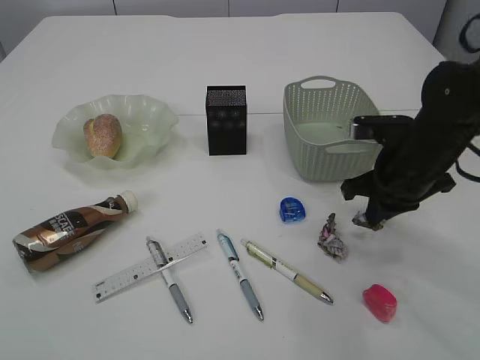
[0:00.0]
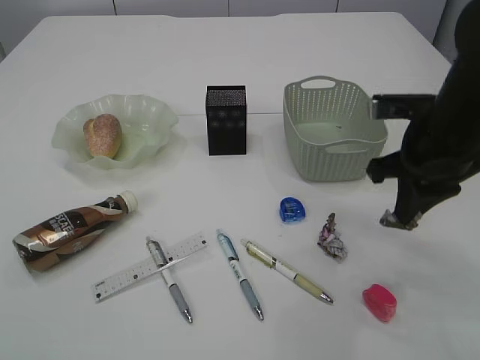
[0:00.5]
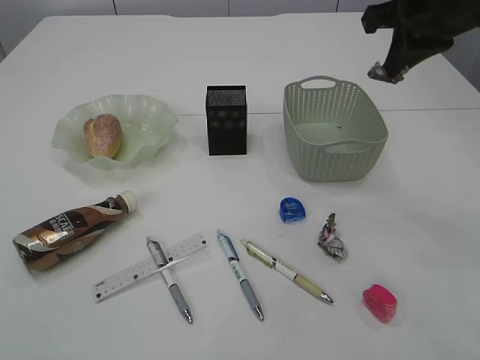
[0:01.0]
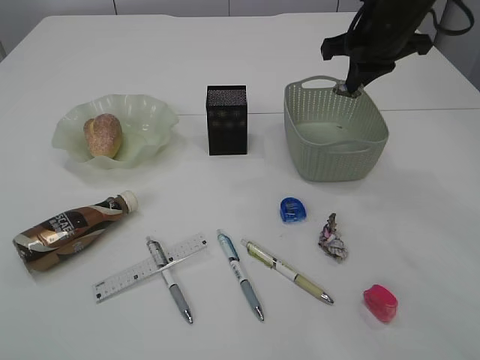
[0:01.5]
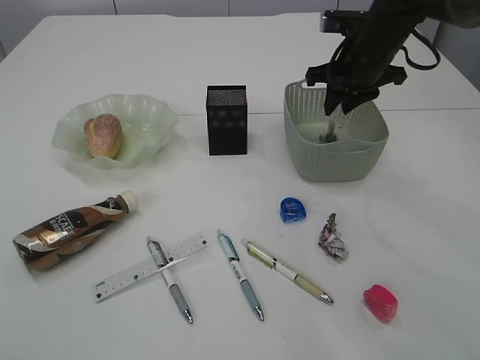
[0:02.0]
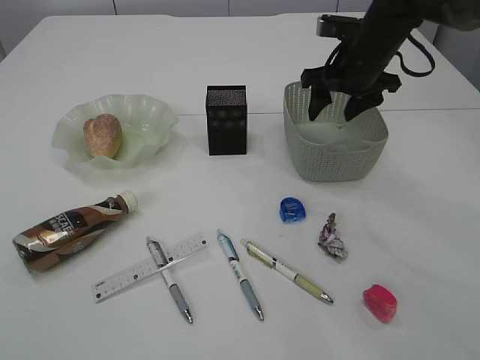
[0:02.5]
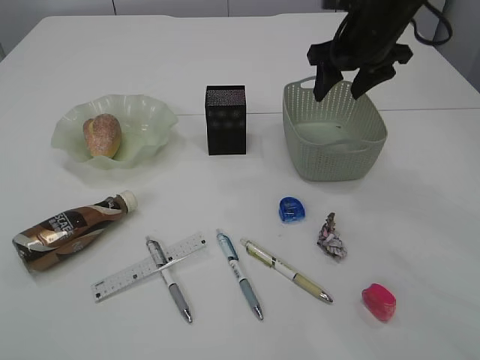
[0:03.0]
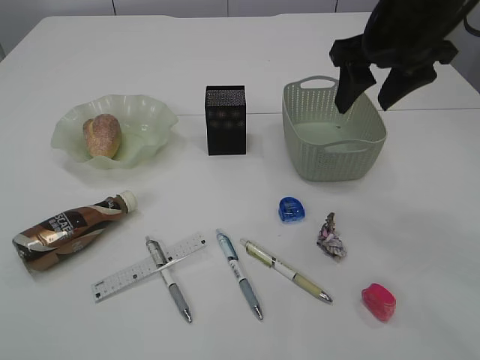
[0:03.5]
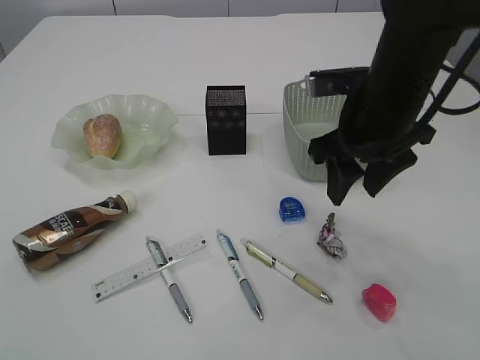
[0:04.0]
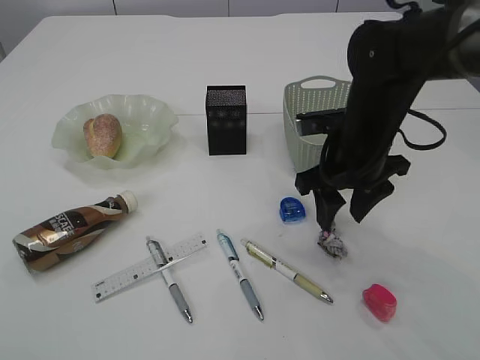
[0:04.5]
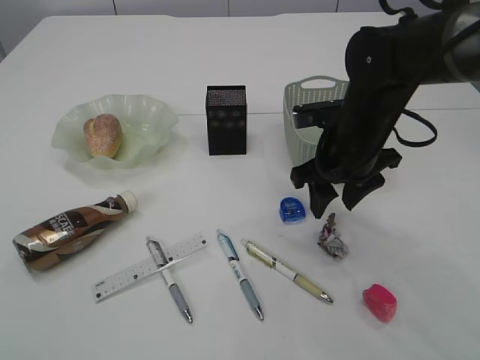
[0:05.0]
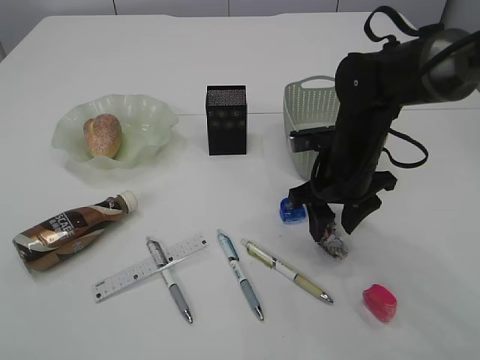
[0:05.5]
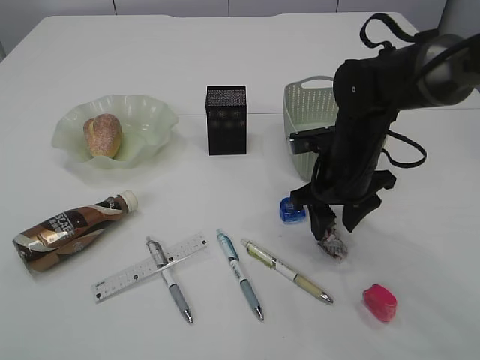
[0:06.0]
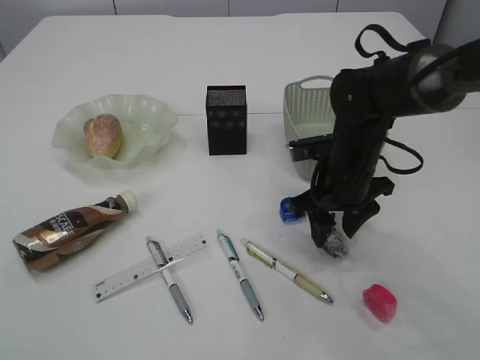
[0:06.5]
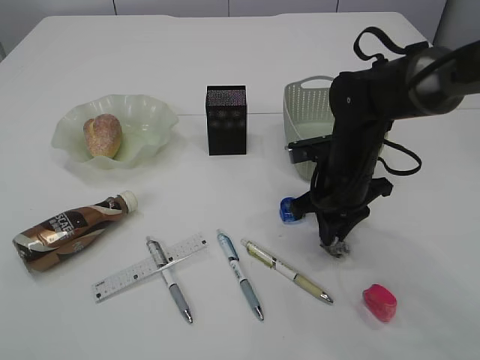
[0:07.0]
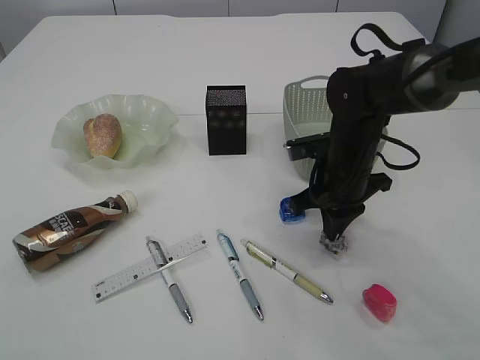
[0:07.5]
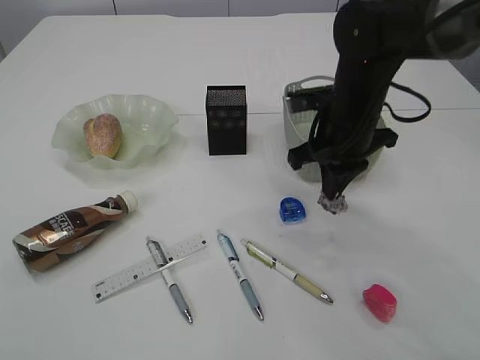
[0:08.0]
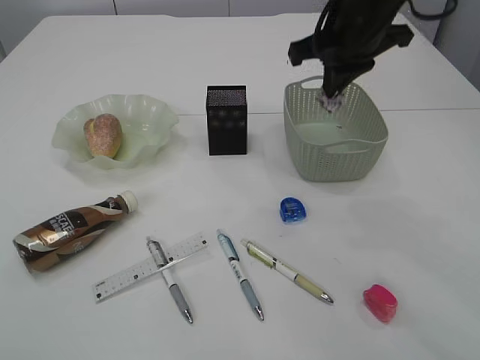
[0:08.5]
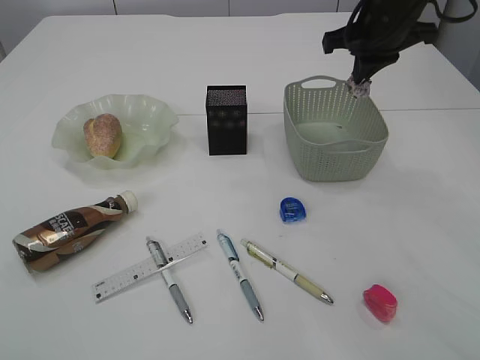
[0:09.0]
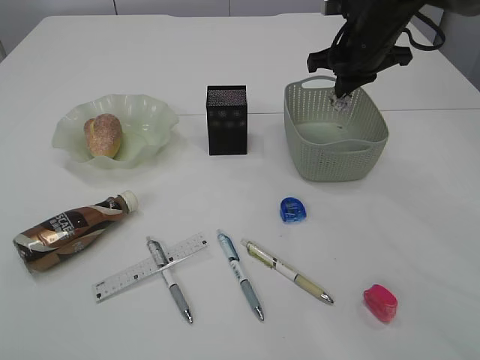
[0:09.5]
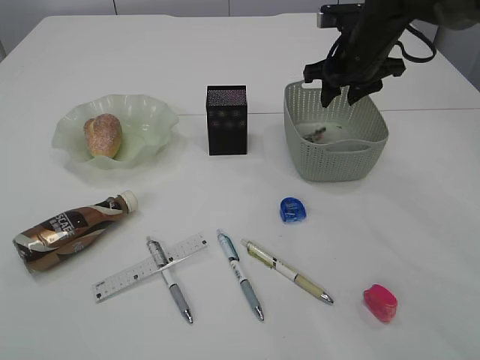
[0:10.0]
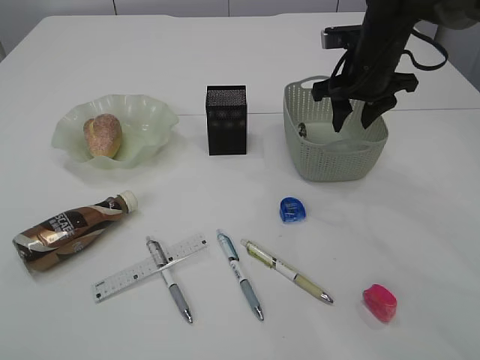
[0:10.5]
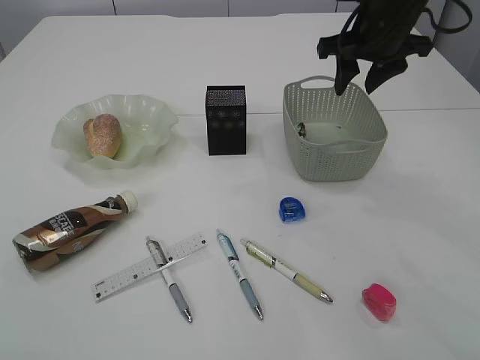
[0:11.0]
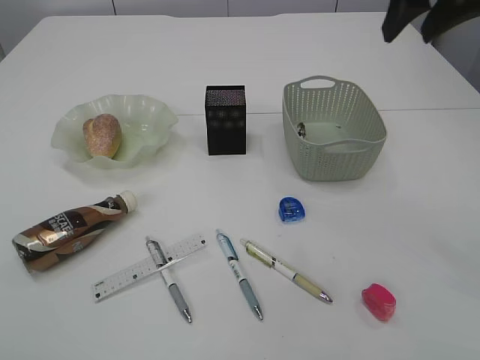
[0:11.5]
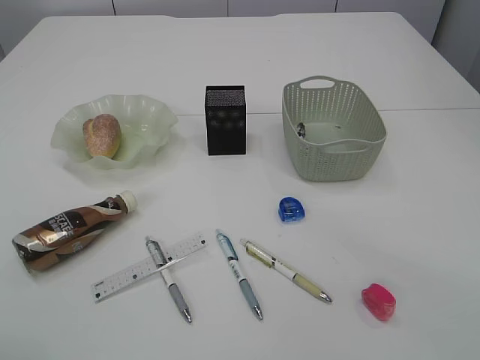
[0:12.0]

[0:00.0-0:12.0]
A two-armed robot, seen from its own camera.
Step, 0:00.5 to 0:02.5: Place the waste paper in the basket.
Step, 0:03.0 to 0:08.0: Pick up the waste paper.
Step, 0:08.5 to 0:10.5: Place the waste paper in the basket.
0:00.0 to 0:02.0: The right gripper is displaced forward and upward by about 15 cm, and opens its fingers.
0:02.0 to 0:04.0: The right gripper heads backward, covering roughly 15 cm, and opens up.
0:04.0 to 0:06.0: The right gripper shifts about 10 cm downward.
0:06.0 to 0:08.0: The right gripper travels upward by approximately 5 cm, and closes up.
0:08.0 to 0:10.0: The right gripper heads forward, covering roughly 10 cm, and opens up.
0:10.0 to 0:12.0: The left gripper shifts approximately 10 cm forward and downward; the right gripper travels backward and upward by some 30 cm.

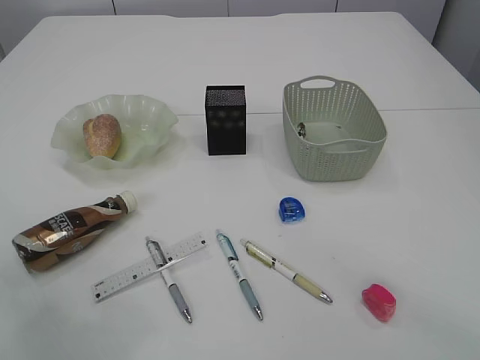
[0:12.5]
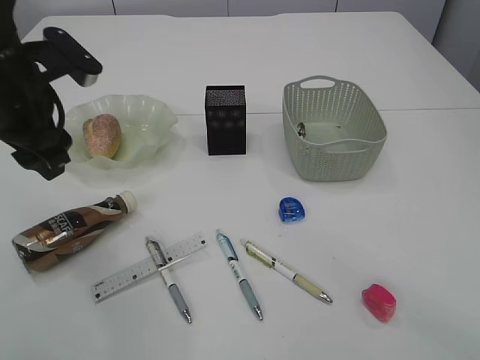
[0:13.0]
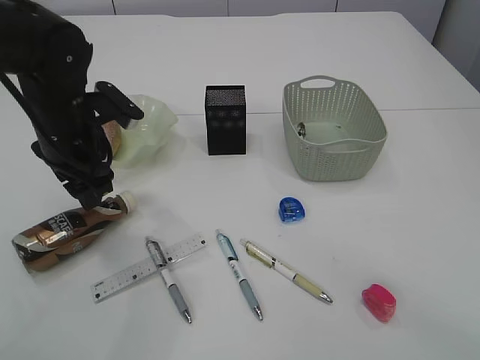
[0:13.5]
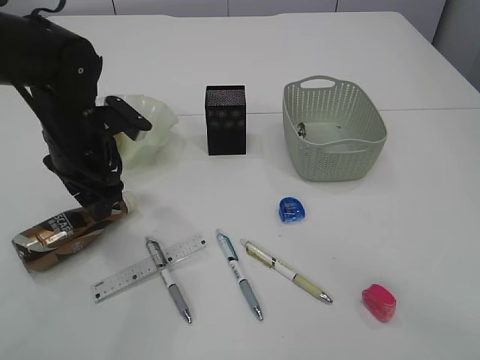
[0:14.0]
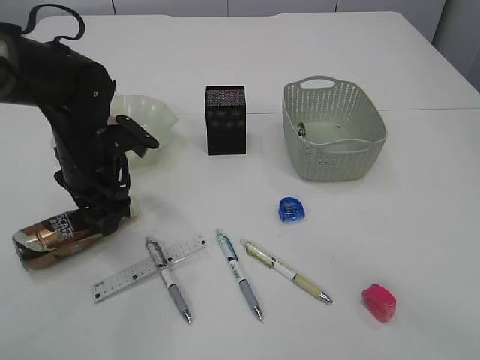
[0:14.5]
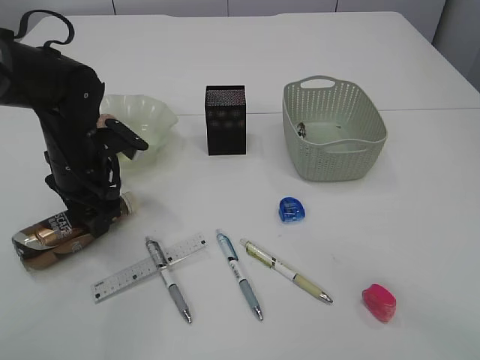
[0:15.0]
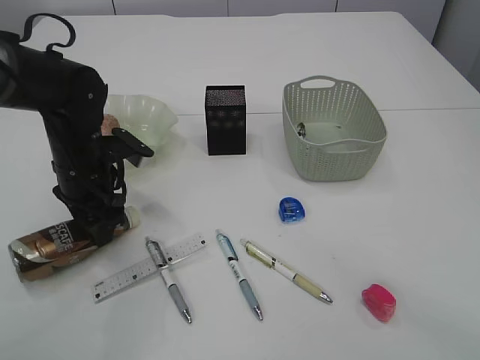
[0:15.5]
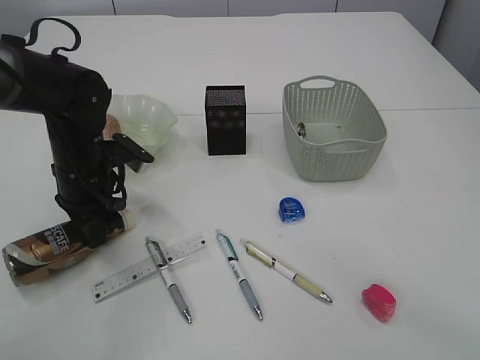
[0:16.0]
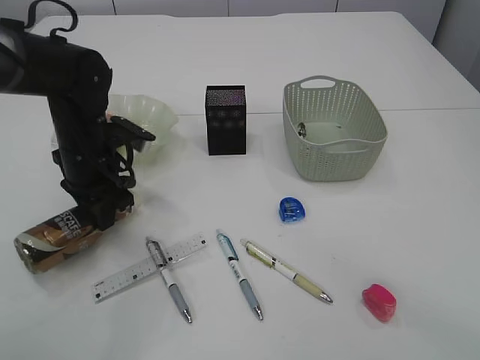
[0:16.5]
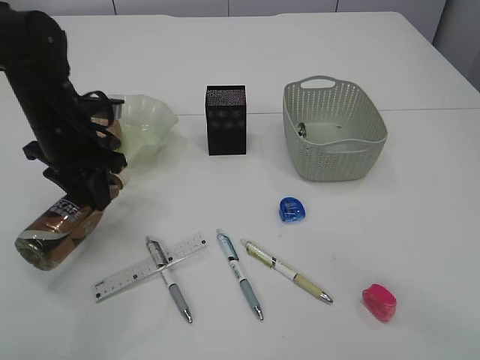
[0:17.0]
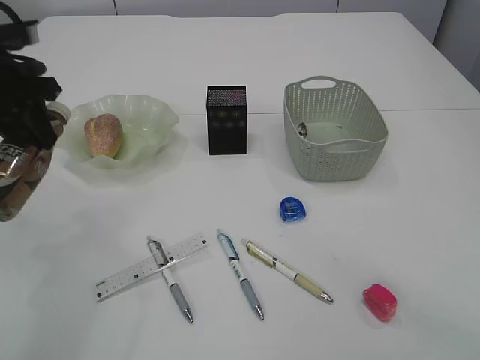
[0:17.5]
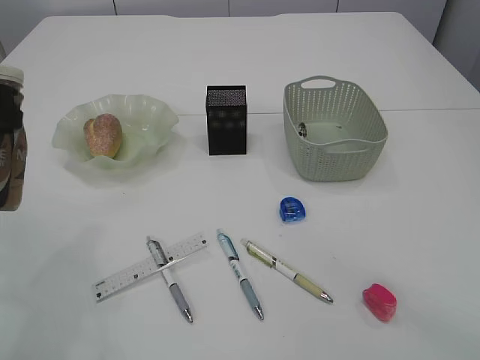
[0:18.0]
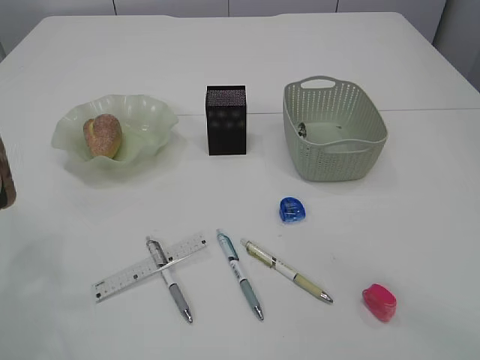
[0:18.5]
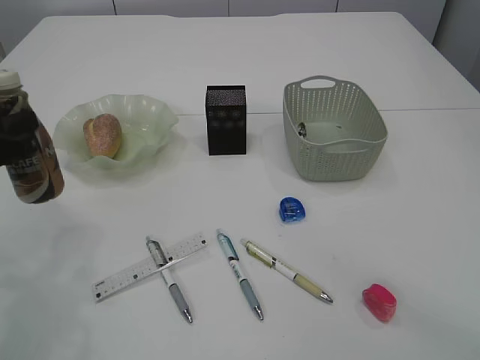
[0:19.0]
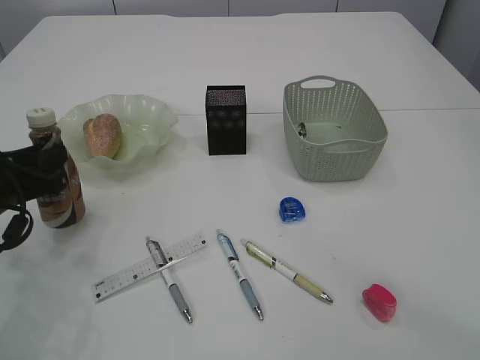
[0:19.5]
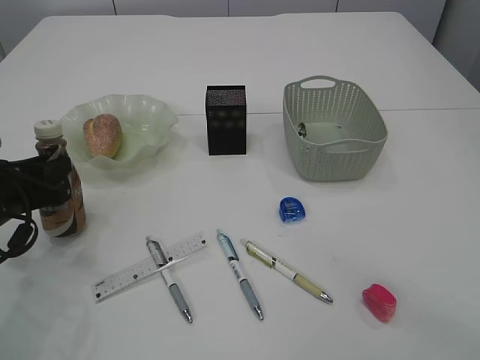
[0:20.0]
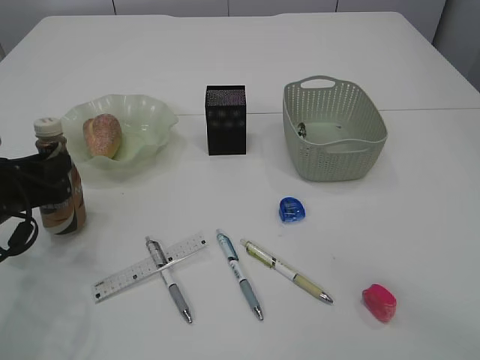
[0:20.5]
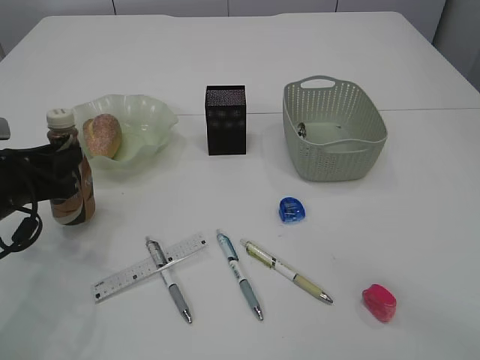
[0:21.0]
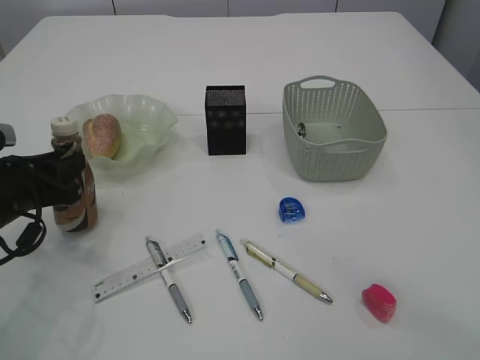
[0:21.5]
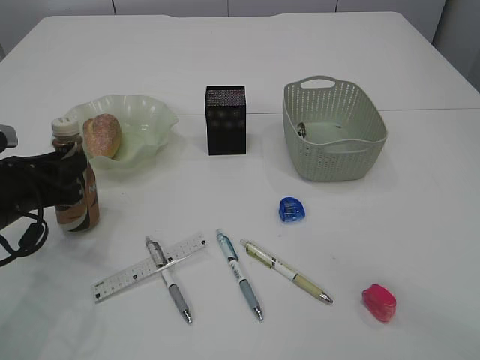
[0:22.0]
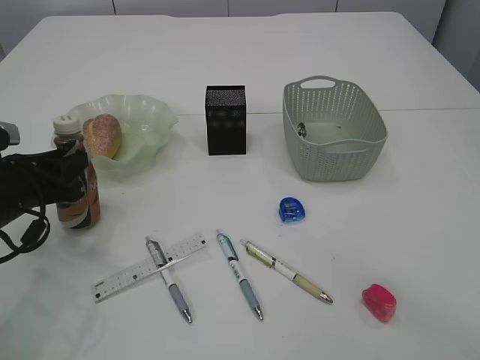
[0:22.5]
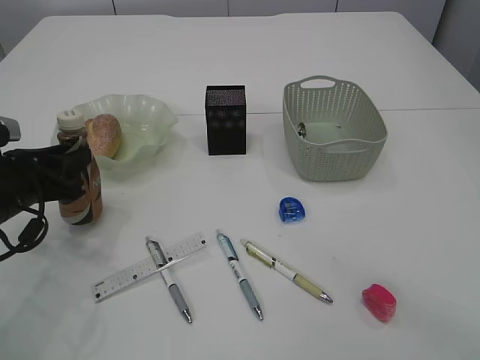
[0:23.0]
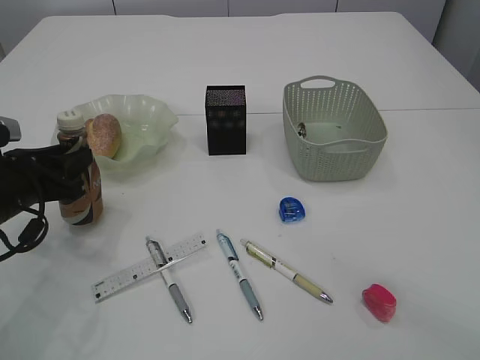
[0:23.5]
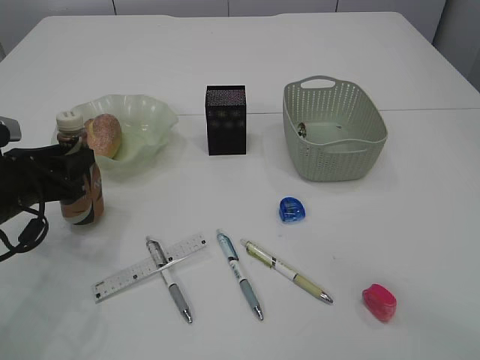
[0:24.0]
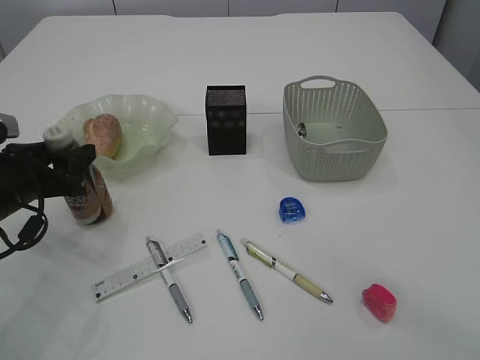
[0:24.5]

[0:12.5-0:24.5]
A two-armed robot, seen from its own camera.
Step, 0:12.5 to 0:17.0: Pick up the bottle with the left arm.
0:12.5 to 0:14.5: The left gripper is displaced downward and forward by about 25 cm.
0:14.5 to 0:16.5: The left gripper closes its fingers.
0:16.5 to 0:18.5: The left gripper travels to the left, backward and upward by some 20 cm.
0:18.5 to 0:20.5: The left gripper is displaced downward by some 10 cm.
0:20.5 to 0:22.5: There are only small adjustments of the grippers.
0:22.5 to 0:24.5: The left gripper opens.

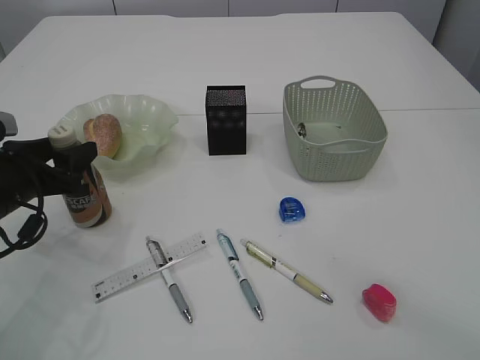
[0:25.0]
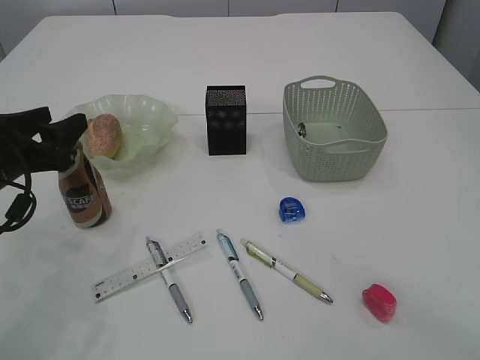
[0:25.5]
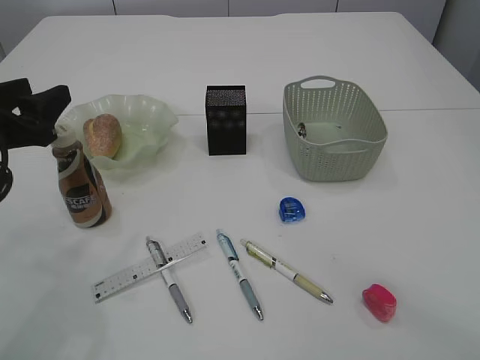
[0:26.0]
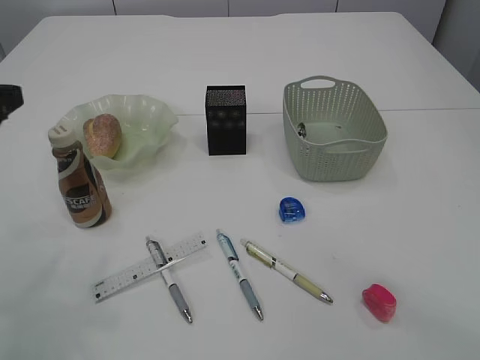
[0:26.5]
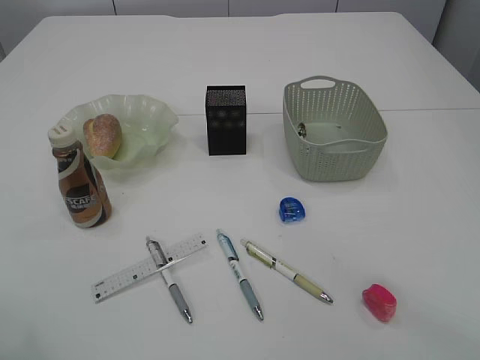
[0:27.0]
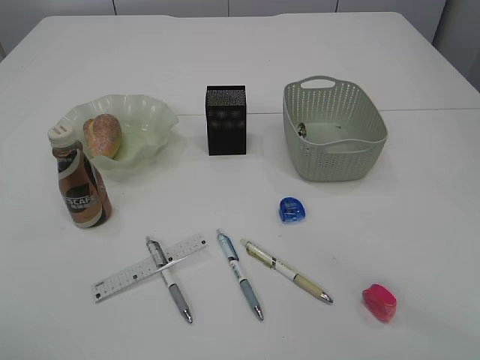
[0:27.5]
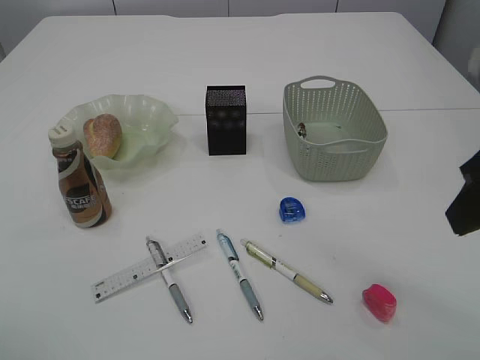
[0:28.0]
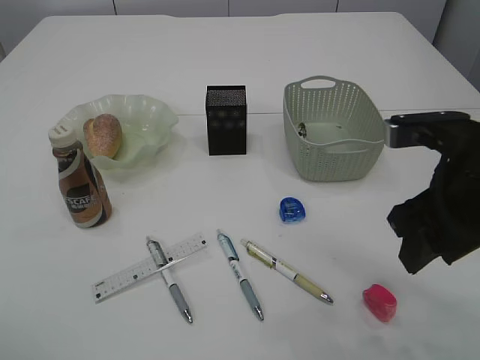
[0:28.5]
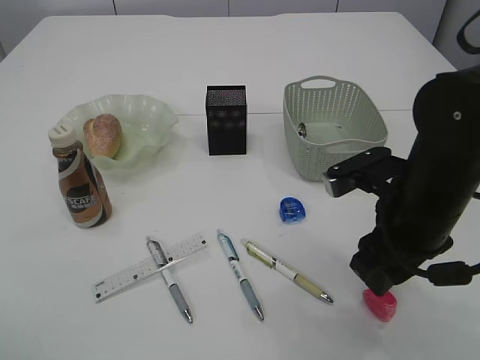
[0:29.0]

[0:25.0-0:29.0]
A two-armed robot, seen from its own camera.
0:25.0 to 0:27.0: The left gripper shifts some 25 cm upward and backward.
0:27.0 to 0:29.0: The right gripper shifts about 20 cm downward, forward and to the left.
